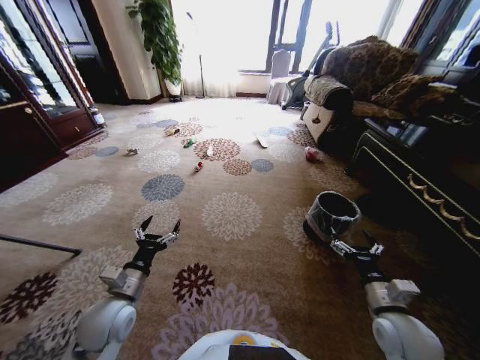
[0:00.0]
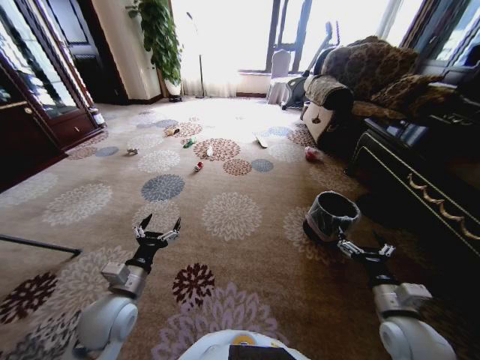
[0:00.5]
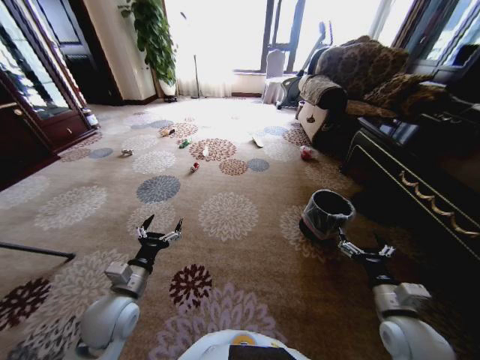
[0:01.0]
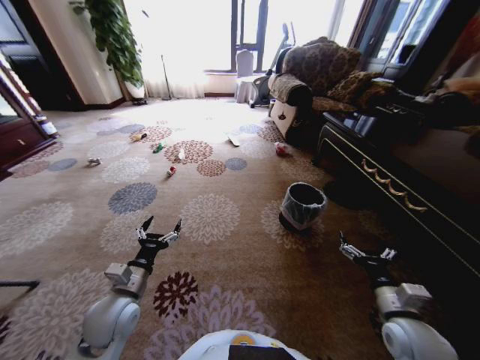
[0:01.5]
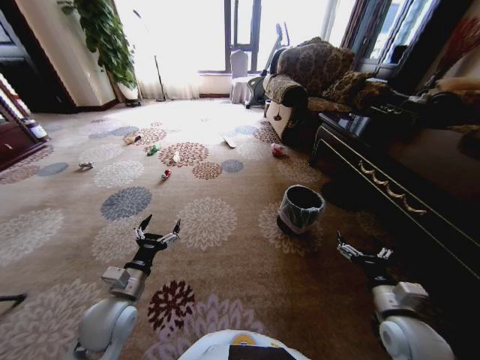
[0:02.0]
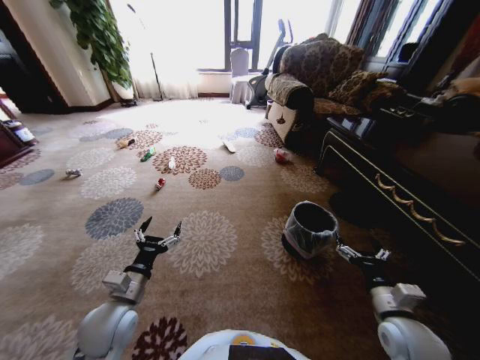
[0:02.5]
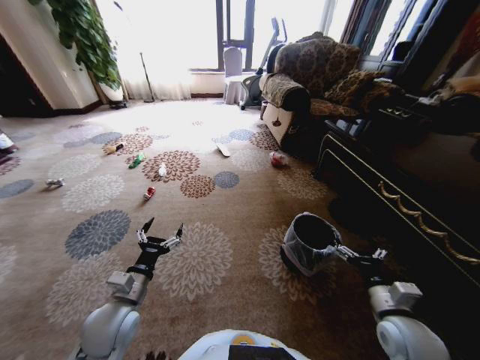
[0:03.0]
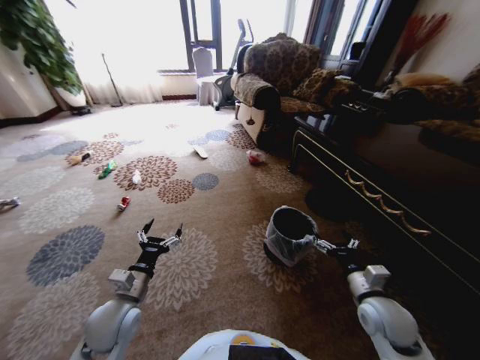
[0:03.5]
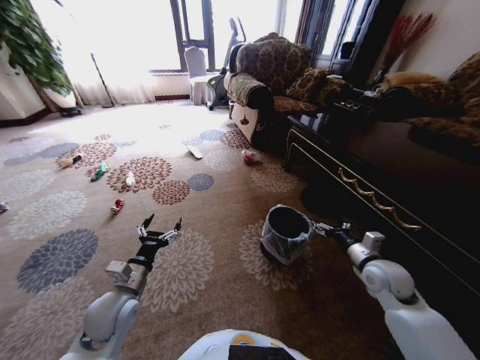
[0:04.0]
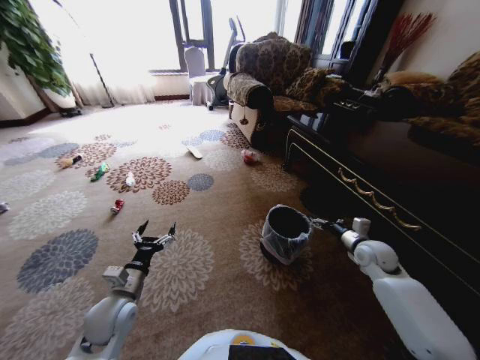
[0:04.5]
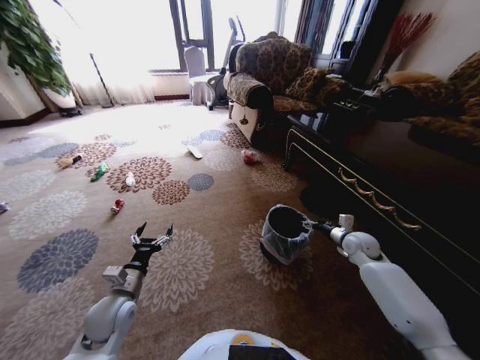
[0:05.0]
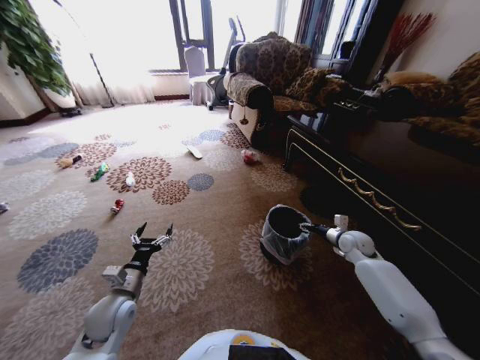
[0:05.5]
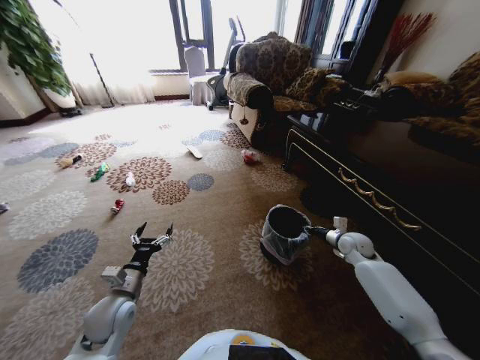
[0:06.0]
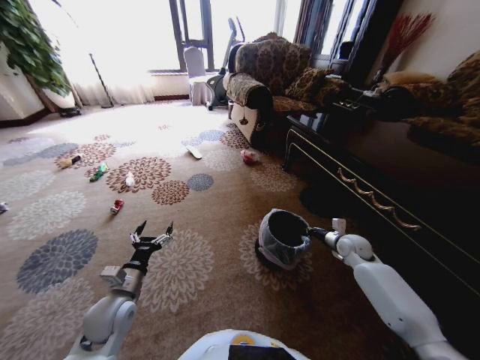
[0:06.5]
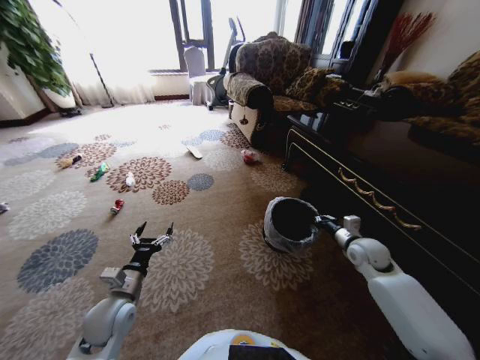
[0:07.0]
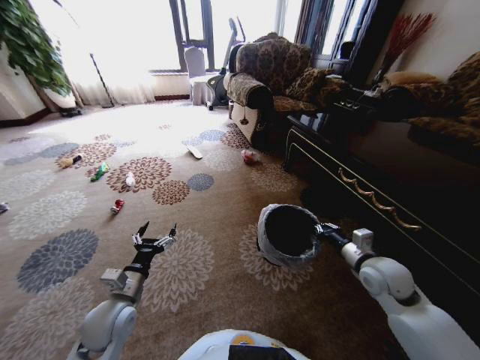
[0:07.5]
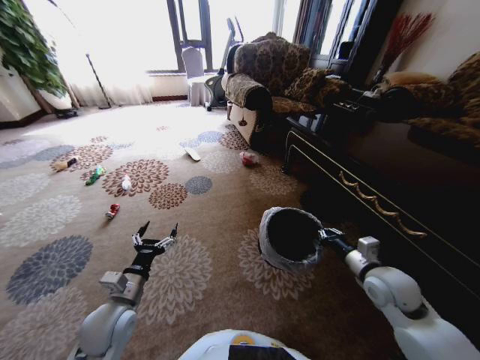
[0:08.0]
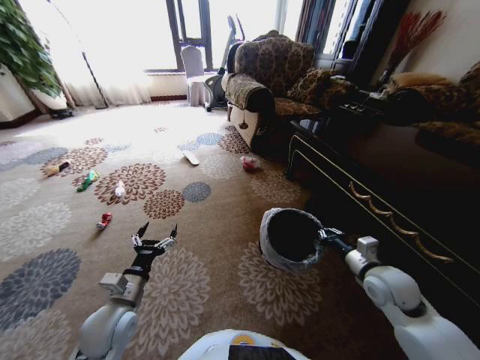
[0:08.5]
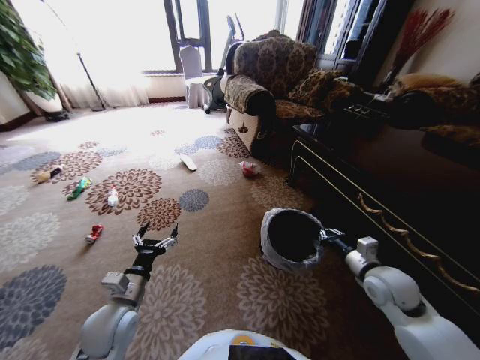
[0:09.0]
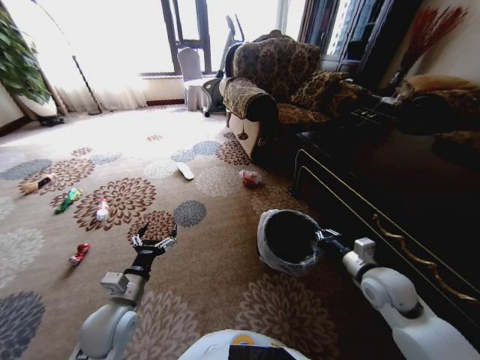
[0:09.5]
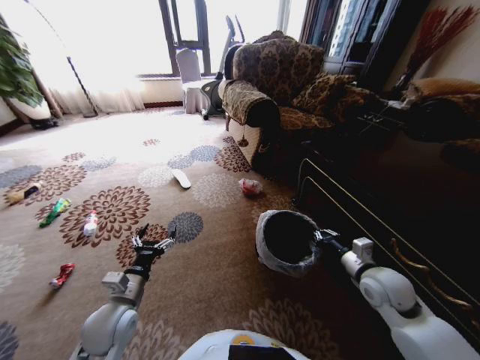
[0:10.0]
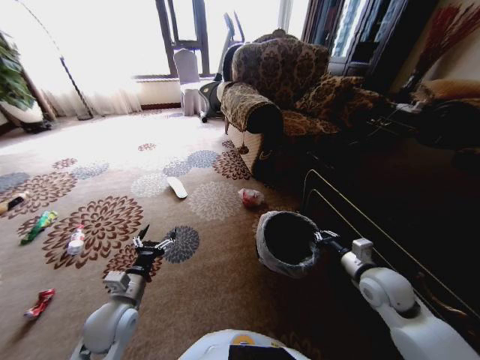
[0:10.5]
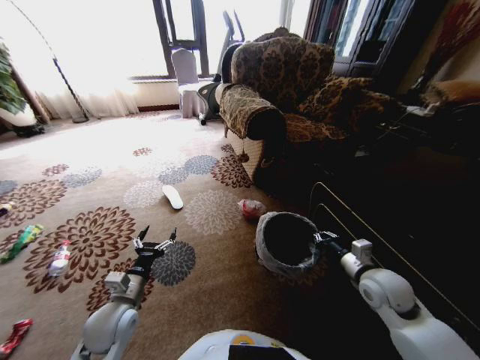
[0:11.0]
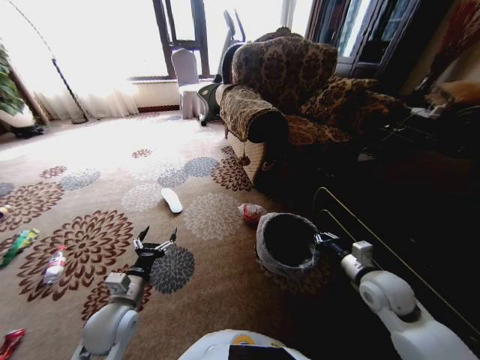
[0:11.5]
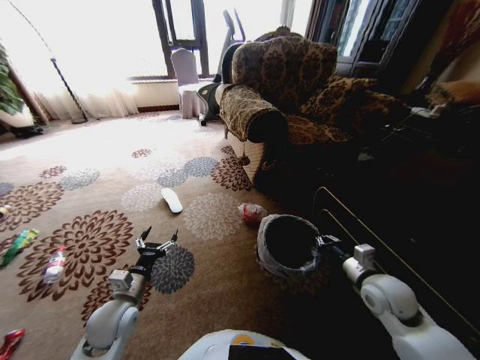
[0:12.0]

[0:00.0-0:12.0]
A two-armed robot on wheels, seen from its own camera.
Task of the whole recording: Pick up the trash from the ground and place it into the trash bin.
0:02.0 to 0:04.0: The right gripper is displaced forward by approximately 15 cm.
0:04.0 to 0:06.0: The right gripper heads forward and downward, covering approximately 15 cm, and closes up.
0:06.0 to 0:08.0: The right gripper shifts approximately 20 cm backward and upward.

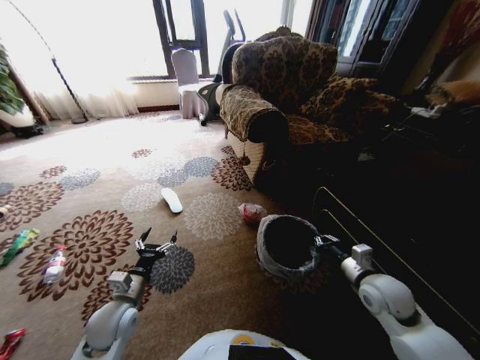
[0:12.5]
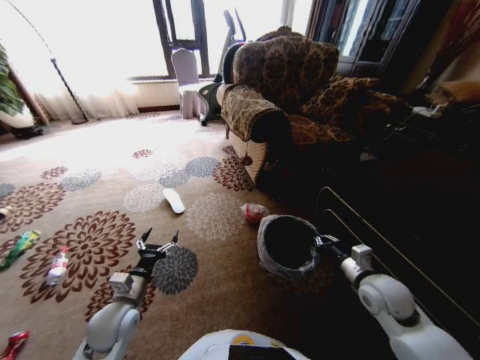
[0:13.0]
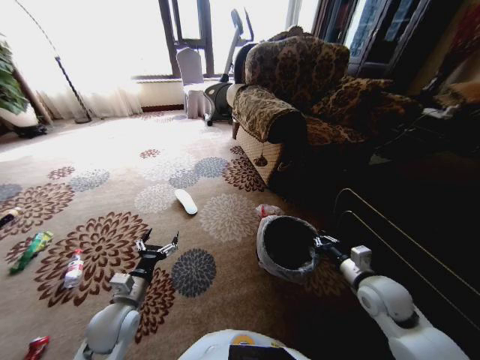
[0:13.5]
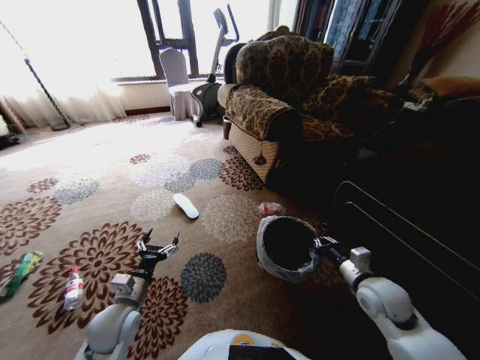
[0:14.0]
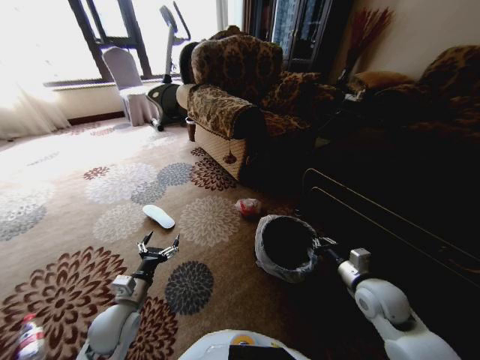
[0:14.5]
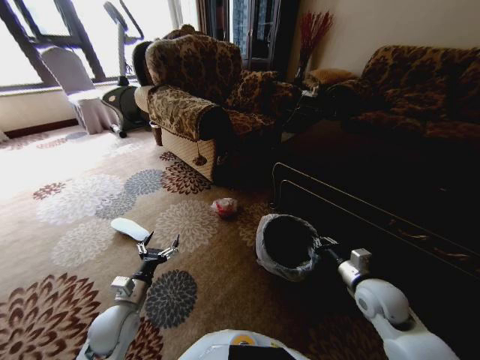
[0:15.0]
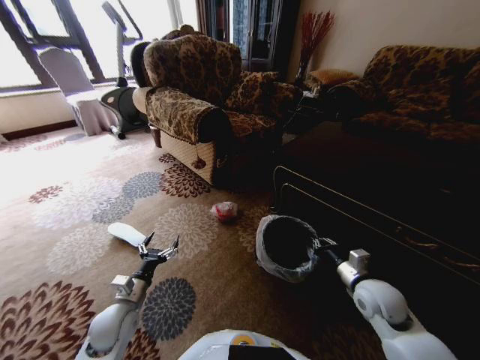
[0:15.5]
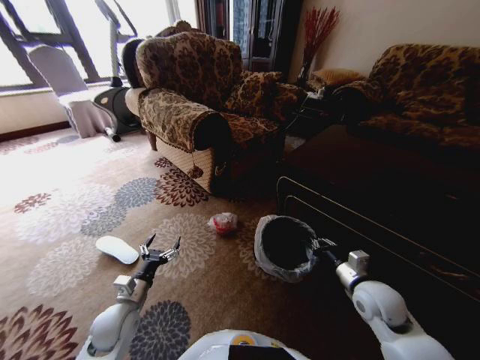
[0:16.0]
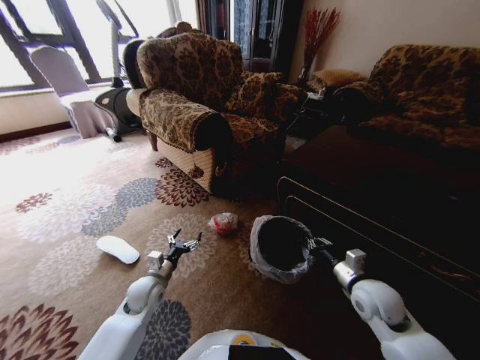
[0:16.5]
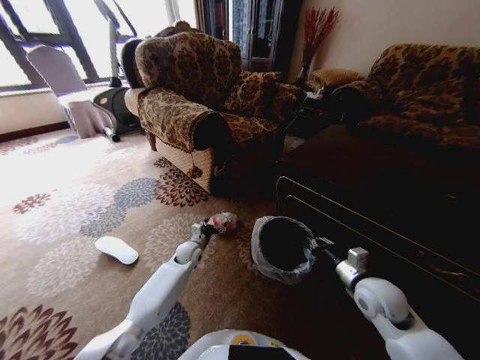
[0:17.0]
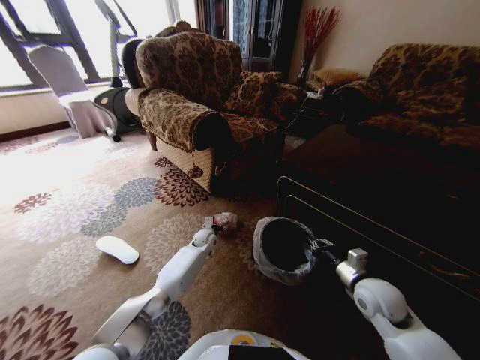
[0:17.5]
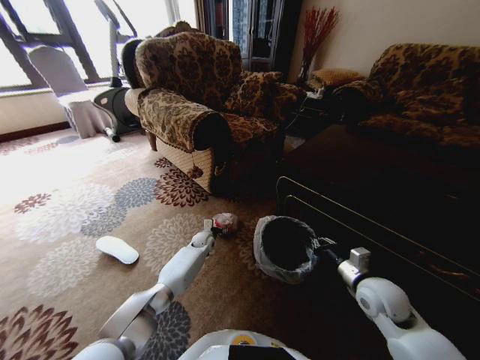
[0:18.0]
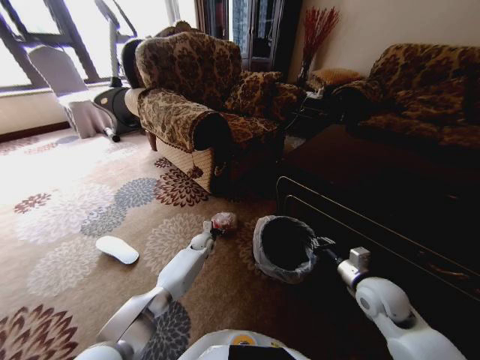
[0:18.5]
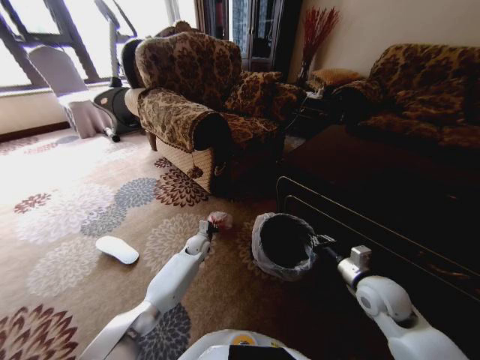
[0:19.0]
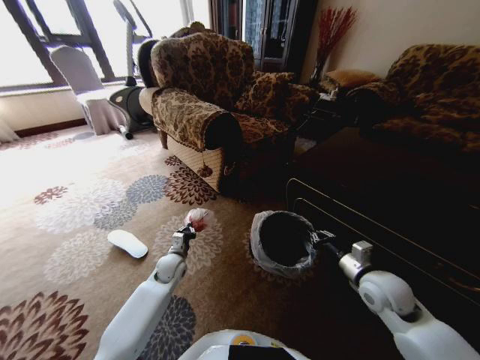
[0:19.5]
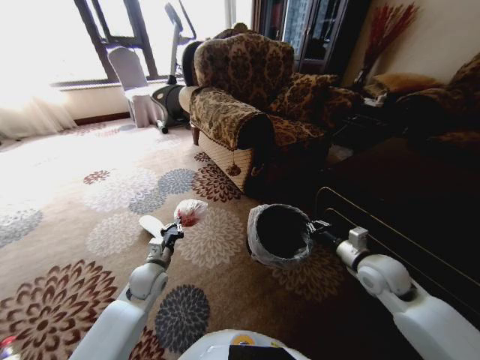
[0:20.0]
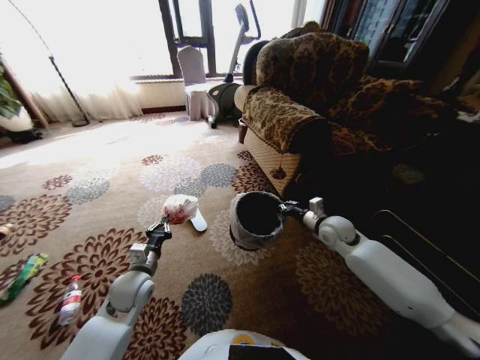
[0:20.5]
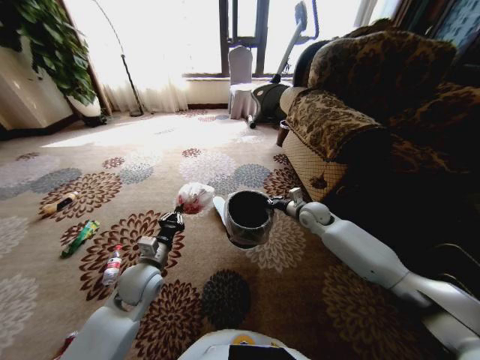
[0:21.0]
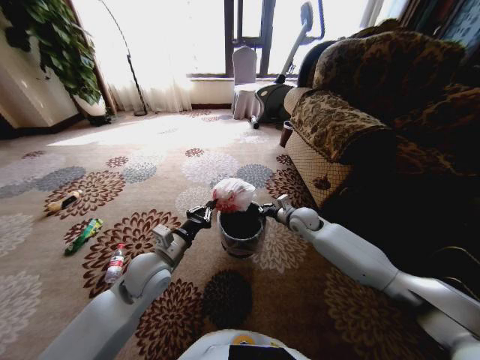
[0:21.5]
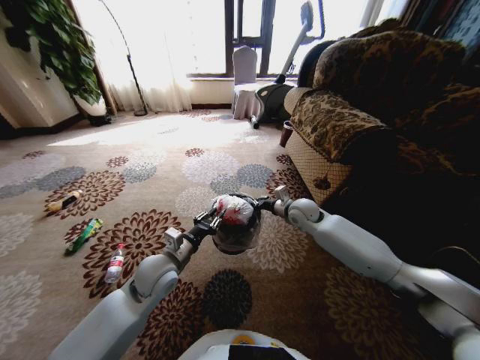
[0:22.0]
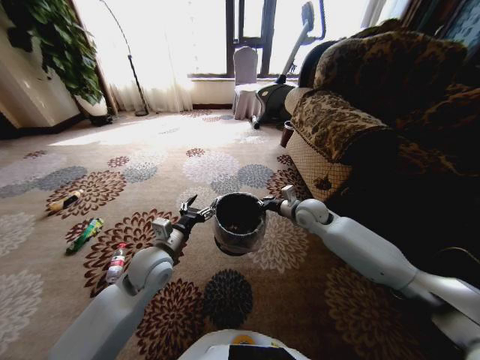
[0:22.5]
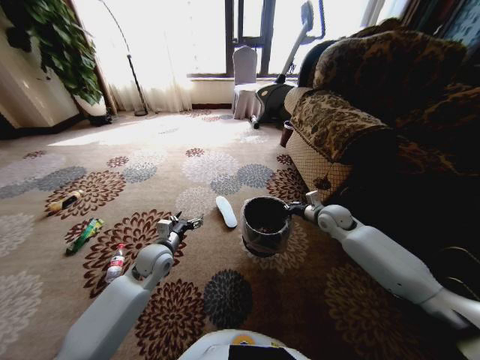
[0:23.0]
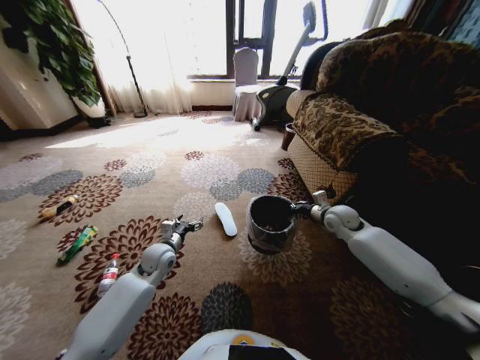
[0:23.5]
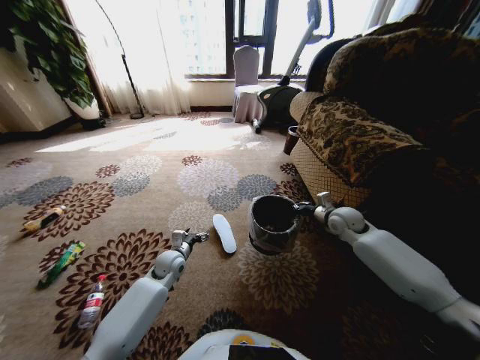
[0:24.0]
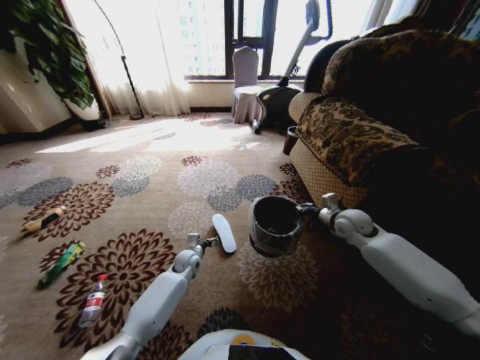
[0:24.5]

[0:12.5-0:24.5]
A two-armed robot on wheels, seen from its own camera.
Task of the whole recording: Pick up the trash from the ground and place it into the trash bin.
0:14.5 to 0:16.5: The left gripper is displaced forward by about 10 cm.
0:16.5 to 0:18.5: The left gripper heads forward, to the right and downward, covering roughly 25 cm, and closes.
0:18.5 to 0:20.5: The right gripper moves forward, approximately 15 cm, while the left gripper moves backward, upward and to the left, about 30 cm, and closes.
0:20.5 to 0:22.5: The left gripper travels upward and to the right by approximately 10 cm, and opens. The right gripper travels to the left by approximately 10 cm.
0:22.5 to 0:24.5: The right gripper shifts roughly 10 cm to the right, while the left gripper shifts some 25 cm downward and forward.

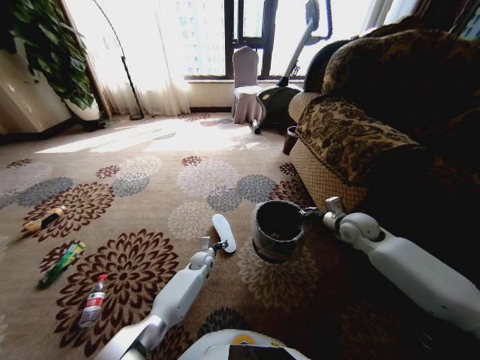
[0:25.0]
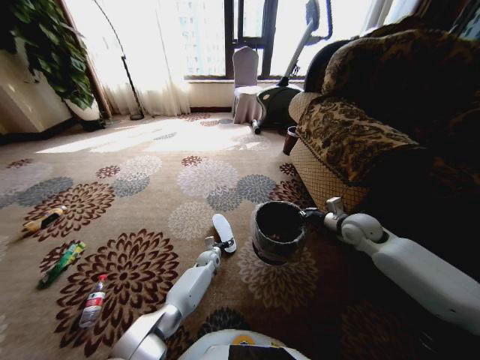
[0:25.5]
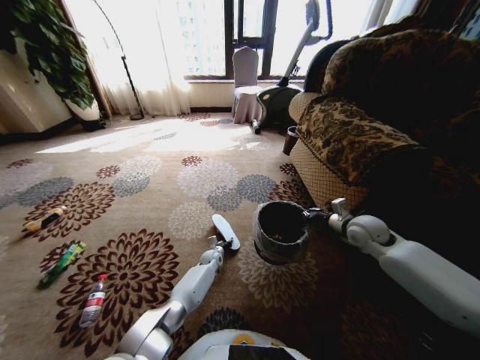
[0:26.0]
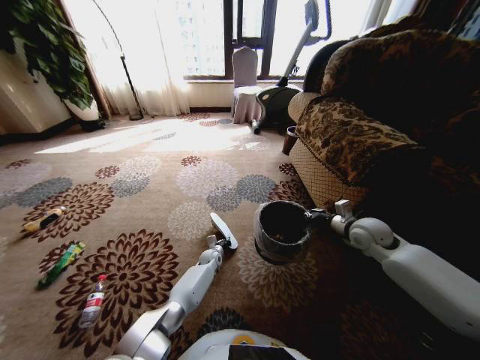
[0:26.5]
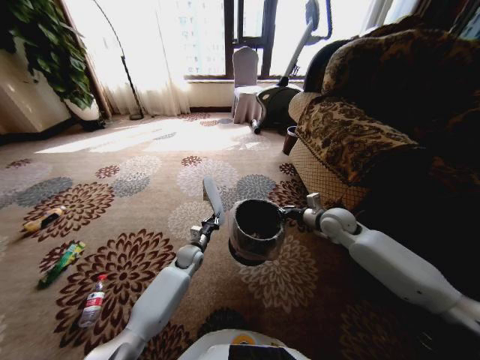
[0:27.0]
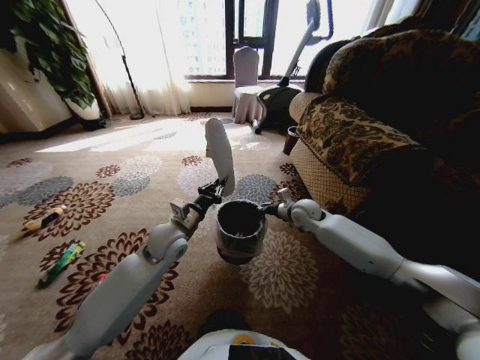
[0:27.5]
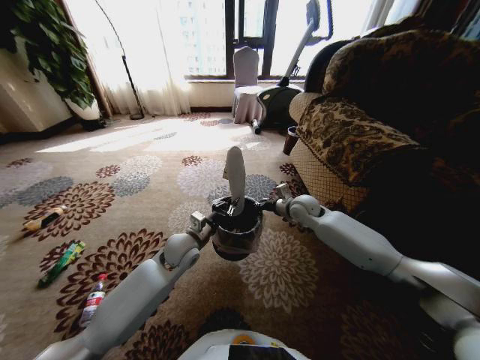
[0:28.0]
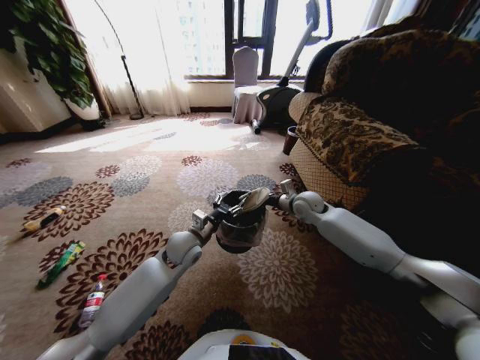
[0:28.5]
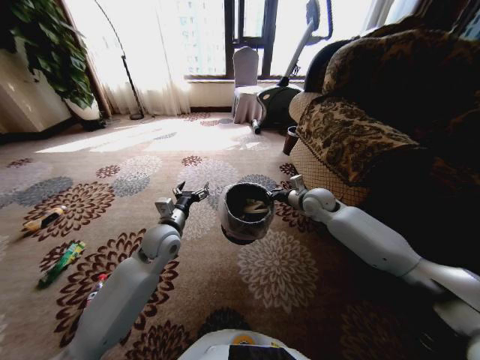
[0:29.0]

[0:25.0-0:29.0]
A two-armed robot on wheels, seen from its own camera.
Task of the whole recording: Pick up the trash from the ground and place it into the trash bin.
0:25.0 to 0:27.0: The right gripper goes approximately 5 cm to the left. The left gripper heads upward, covering about 10 cm, and closes up.
0:27.0 to 0:29.0: The right gripper heads forward, covering roughly 5 cm. Meanwhile the left gripper goes up and down, some 20 cm each way, reversing 2 times, and opens.
